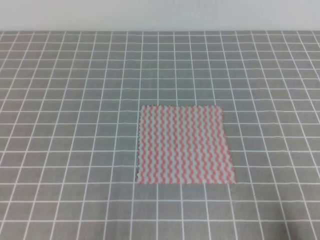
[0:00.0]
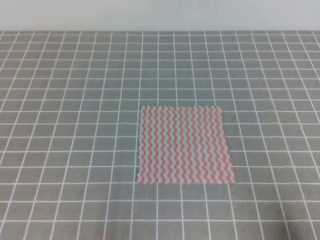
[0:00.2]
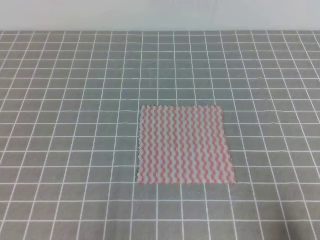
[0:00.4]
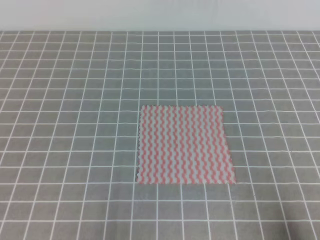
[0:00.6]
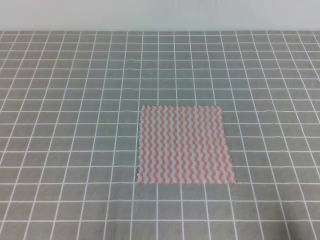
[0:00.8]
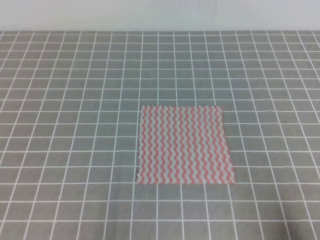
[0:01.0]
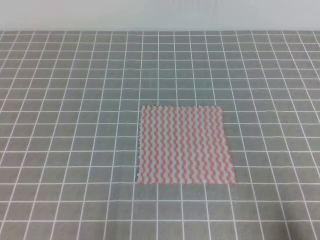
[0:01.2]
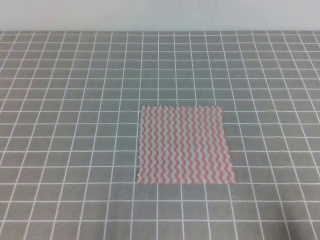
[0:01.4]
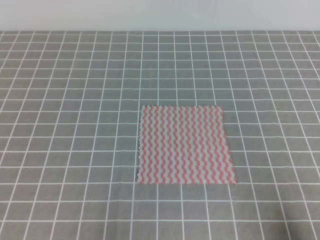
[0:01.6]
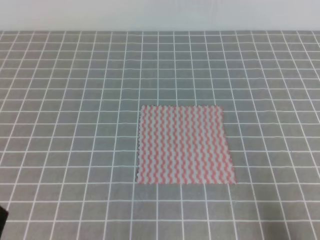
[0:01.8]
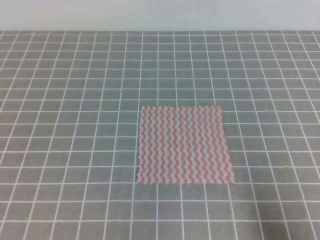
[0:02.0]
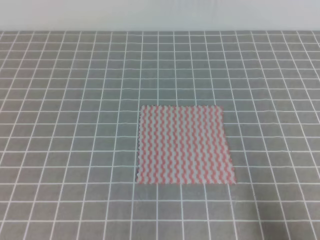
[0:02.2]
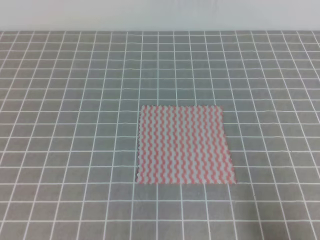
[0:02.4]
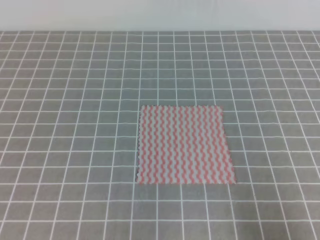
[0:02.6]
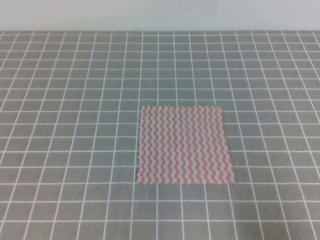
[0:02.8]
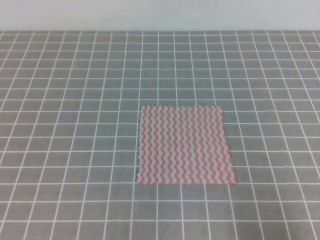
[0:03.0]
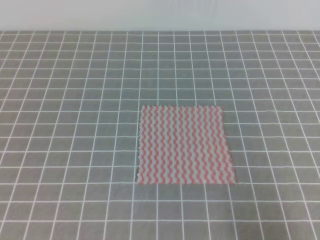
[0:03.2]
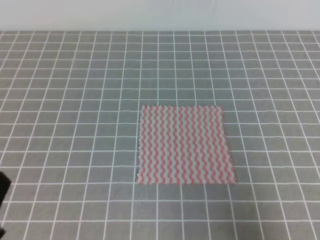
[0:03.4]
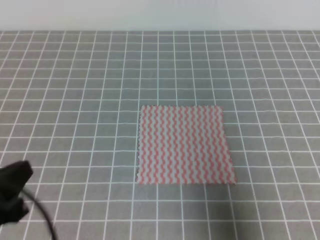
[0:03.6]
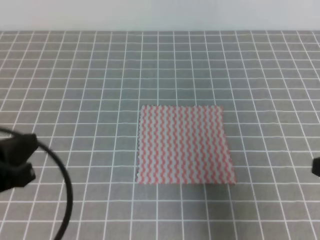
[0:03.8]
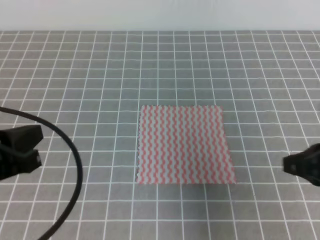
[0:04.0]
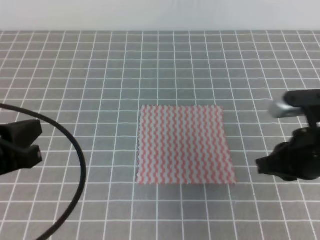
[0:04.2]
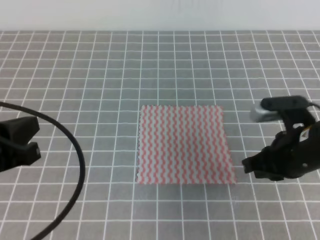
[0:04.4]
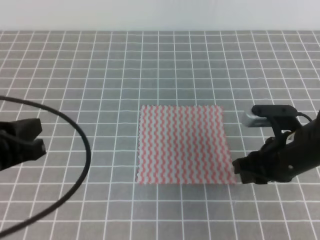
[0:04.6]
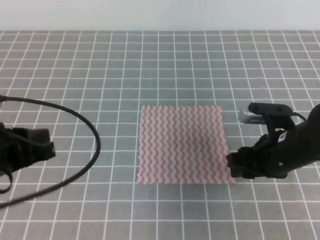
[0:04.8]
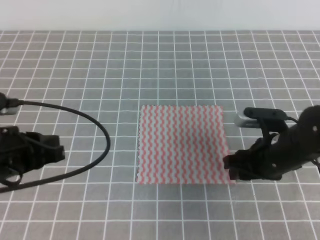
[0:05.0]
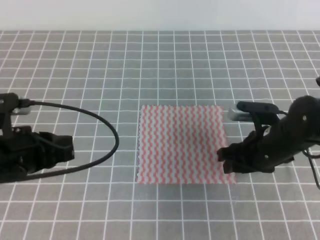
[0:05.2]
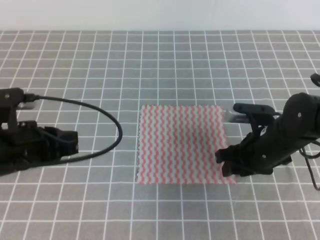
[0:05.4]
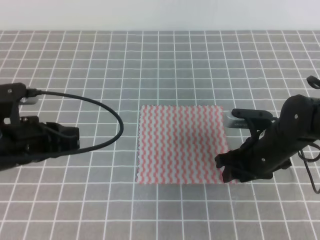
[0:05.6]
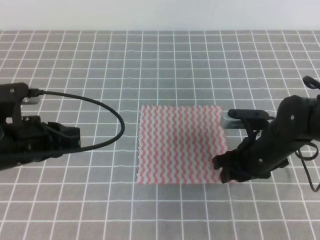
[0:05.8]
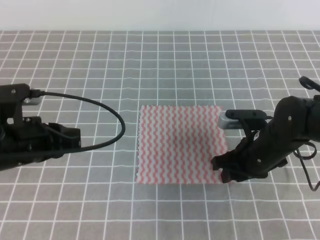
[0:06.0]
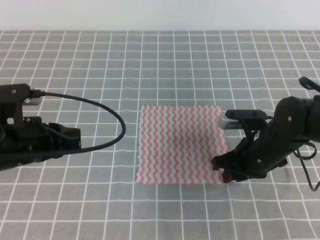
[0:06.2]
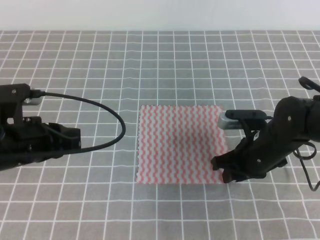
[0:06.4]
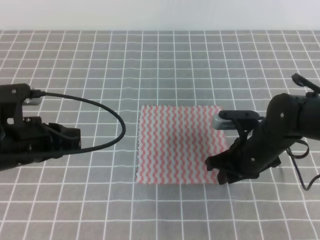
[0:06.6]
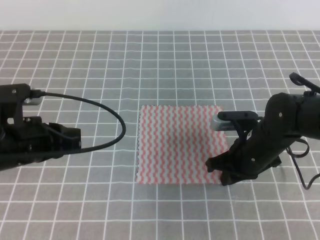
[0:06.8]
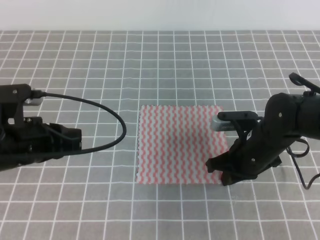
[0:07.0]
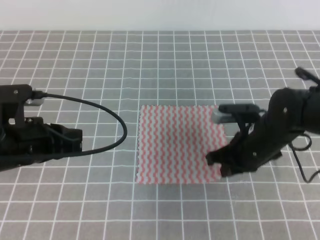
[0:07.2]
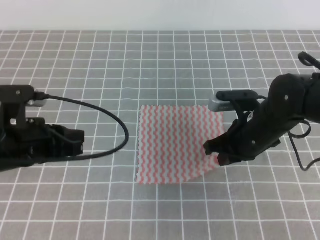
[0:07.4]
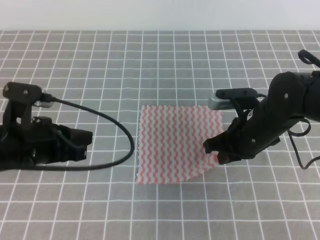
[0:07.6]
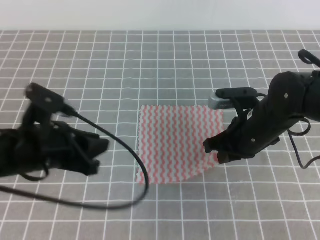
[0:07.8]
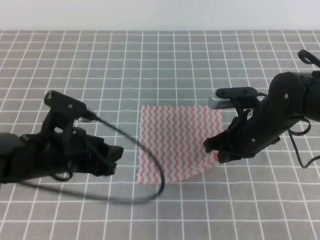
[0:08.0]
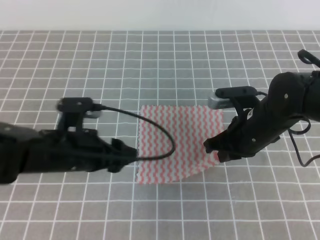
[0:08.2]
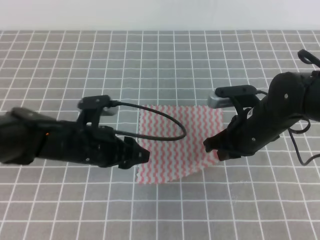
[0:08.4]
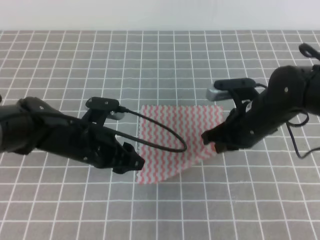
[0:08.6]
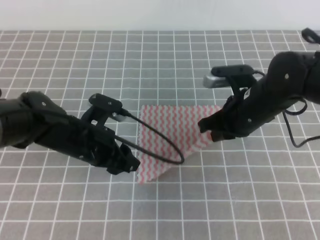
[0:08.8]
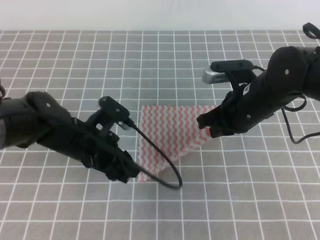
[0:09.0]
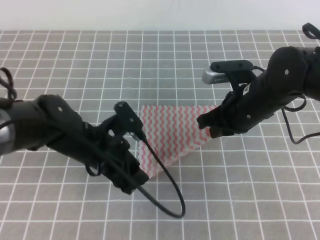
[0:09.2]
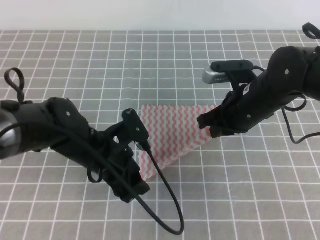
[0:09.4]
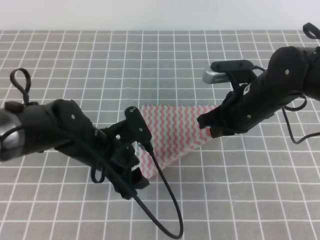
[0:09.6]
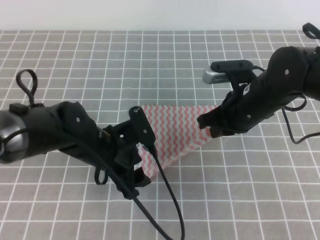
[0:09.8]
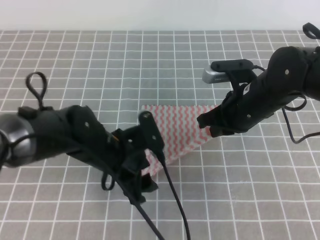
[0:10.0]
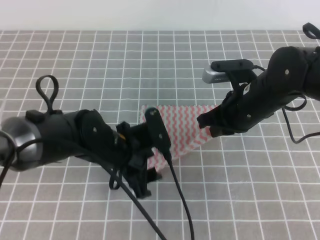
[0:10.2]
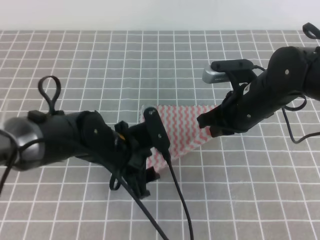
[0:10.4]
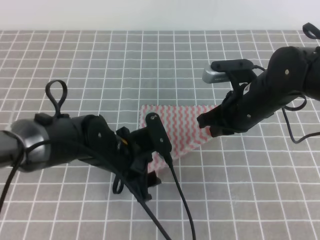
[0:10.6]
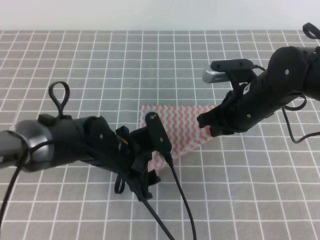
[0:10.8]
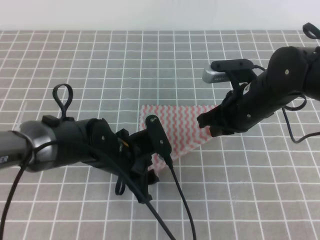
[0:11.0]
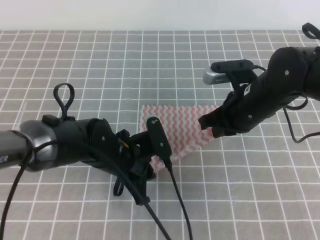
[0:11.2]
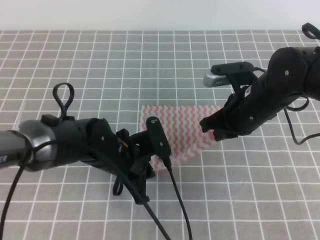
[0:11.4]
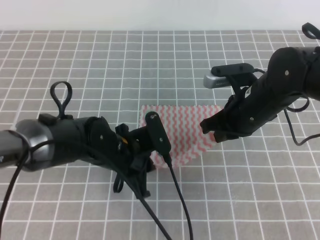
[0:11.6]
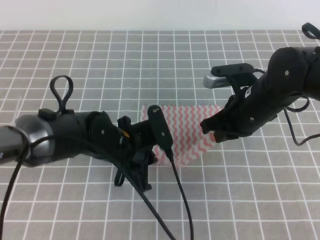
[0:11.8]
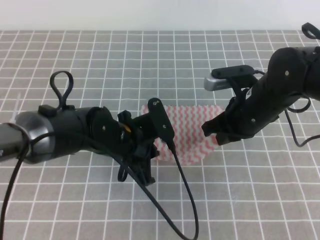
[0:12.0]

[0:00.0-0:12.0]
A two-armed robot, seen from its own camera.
0:03.0 to 0:04.4: The left gripper shifts about 15 cm forward and upward. The right gripper goes about 20 cm forward and to the left.
0:04.4 to 0:06.0: The left gripper travels forward and downward by roughly 10 cm, while the right gripper heads downward and forward, covering about 10 cm, and opens its fingers.
0:06.0 to 0:07.6: The right gripper closes.
0:07.6 to 0:09.0: The left gripper heads to the right, downward and forward, covering some 10 cm, and opens.
0:09.0 to 0:10.4: The left gripper travels to the right by approximately 5 cm.
0:10.4 to 0:12.0: The left gripper closes up.

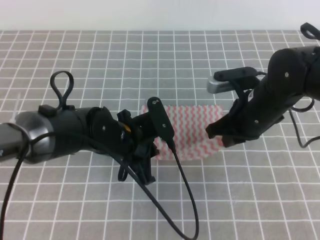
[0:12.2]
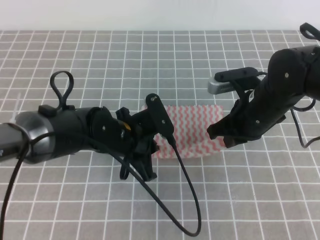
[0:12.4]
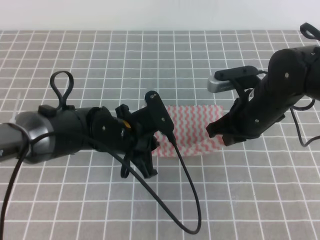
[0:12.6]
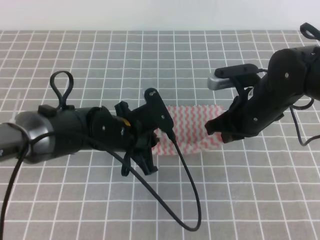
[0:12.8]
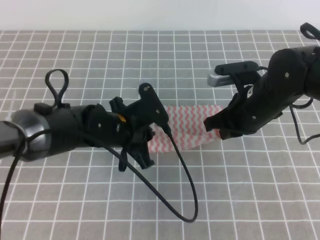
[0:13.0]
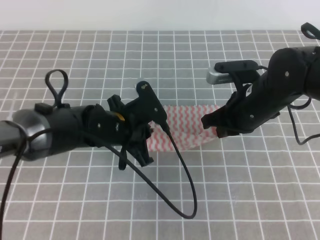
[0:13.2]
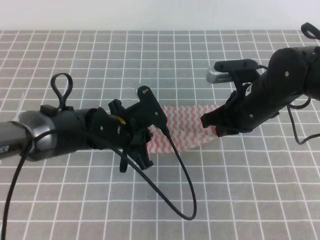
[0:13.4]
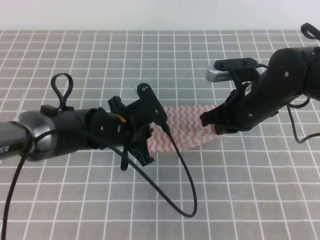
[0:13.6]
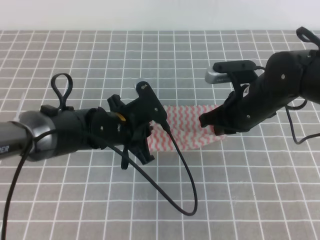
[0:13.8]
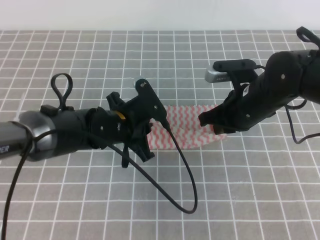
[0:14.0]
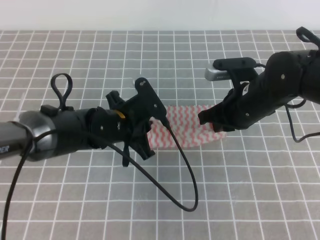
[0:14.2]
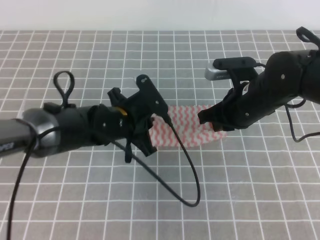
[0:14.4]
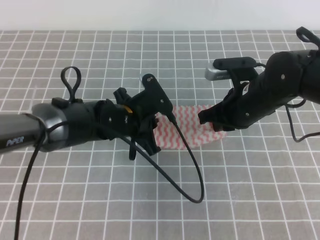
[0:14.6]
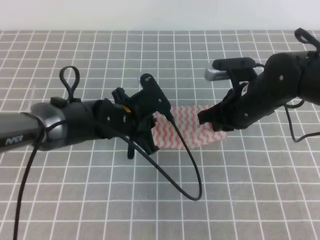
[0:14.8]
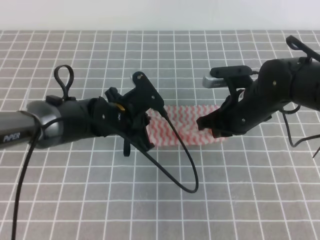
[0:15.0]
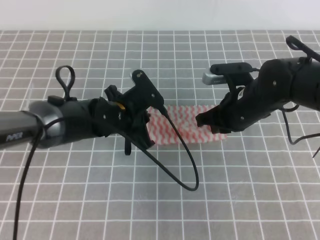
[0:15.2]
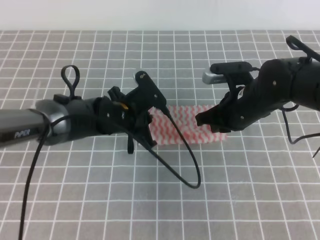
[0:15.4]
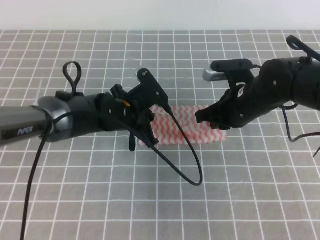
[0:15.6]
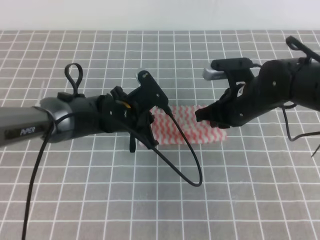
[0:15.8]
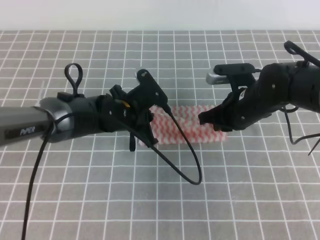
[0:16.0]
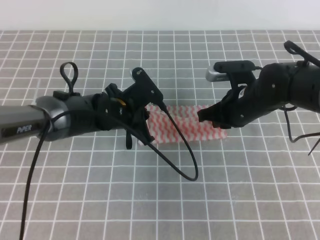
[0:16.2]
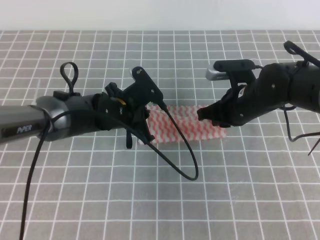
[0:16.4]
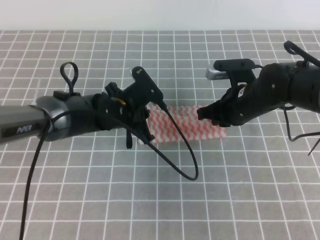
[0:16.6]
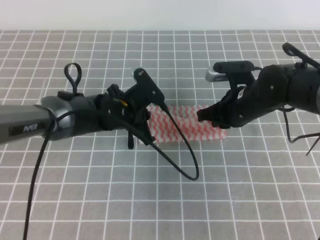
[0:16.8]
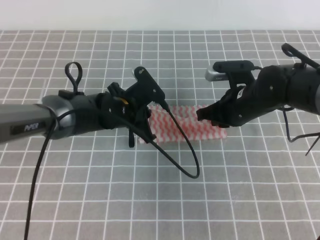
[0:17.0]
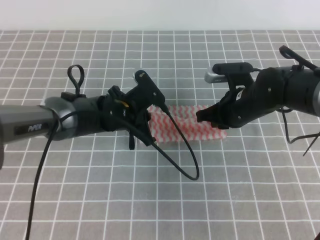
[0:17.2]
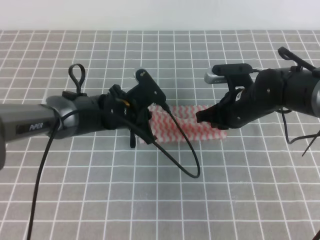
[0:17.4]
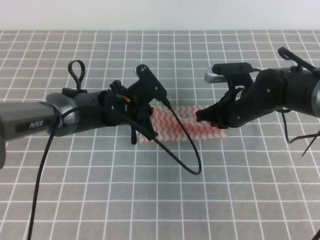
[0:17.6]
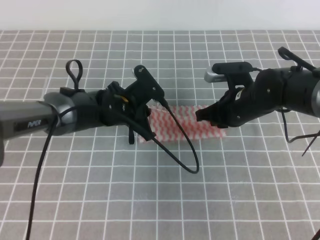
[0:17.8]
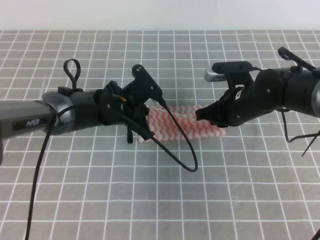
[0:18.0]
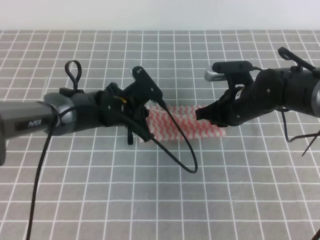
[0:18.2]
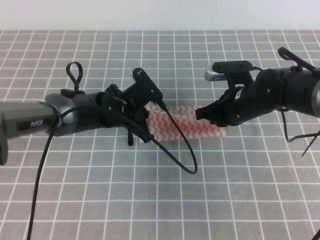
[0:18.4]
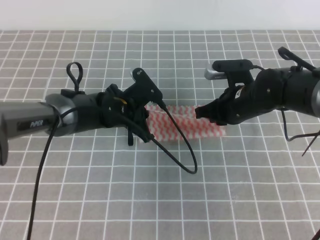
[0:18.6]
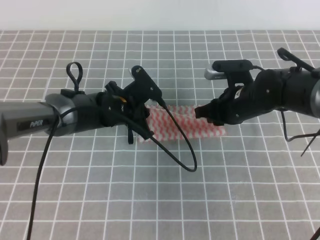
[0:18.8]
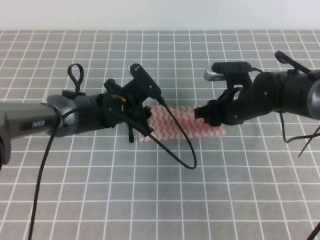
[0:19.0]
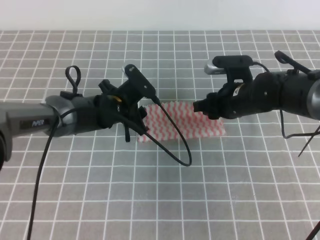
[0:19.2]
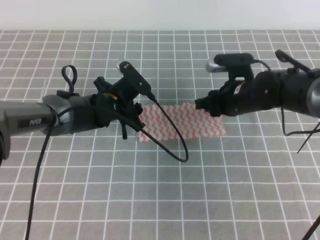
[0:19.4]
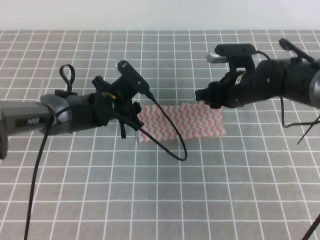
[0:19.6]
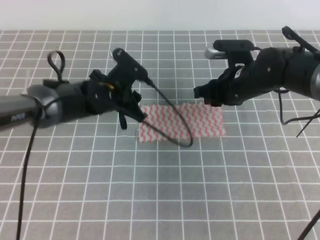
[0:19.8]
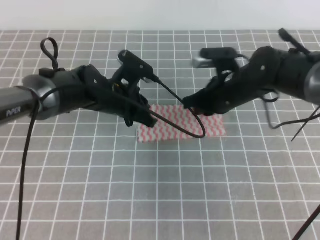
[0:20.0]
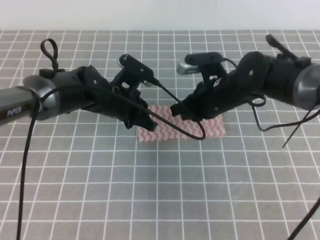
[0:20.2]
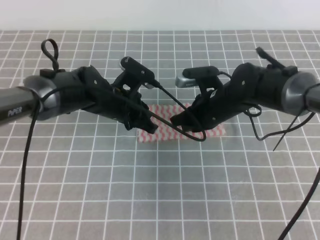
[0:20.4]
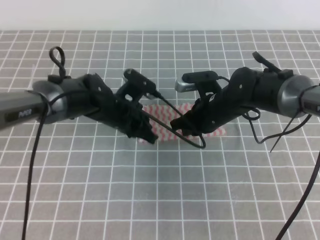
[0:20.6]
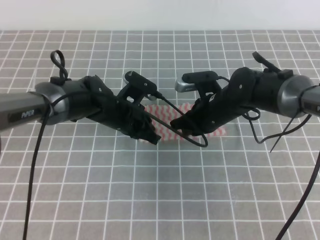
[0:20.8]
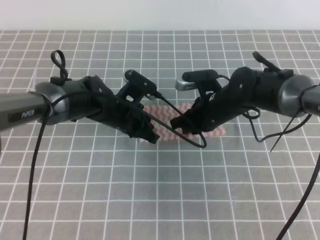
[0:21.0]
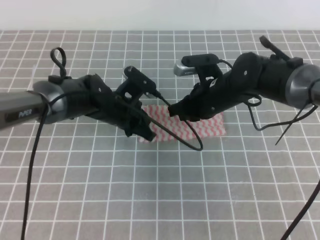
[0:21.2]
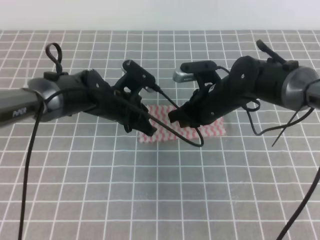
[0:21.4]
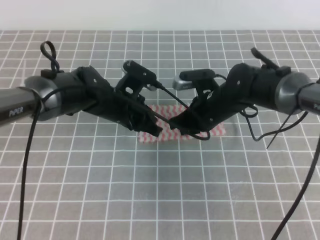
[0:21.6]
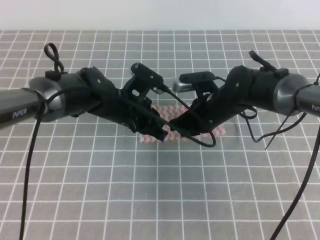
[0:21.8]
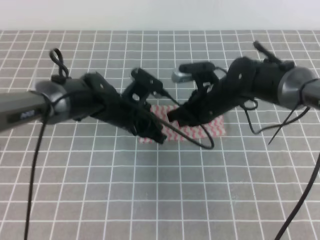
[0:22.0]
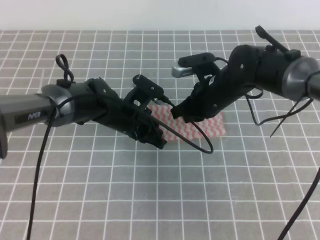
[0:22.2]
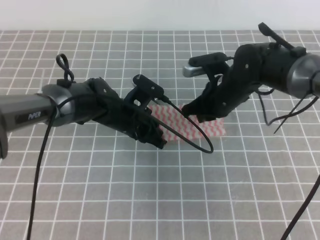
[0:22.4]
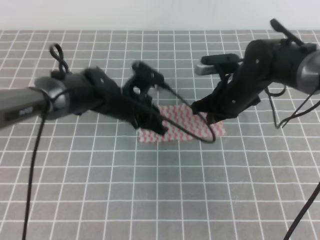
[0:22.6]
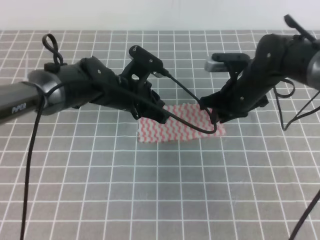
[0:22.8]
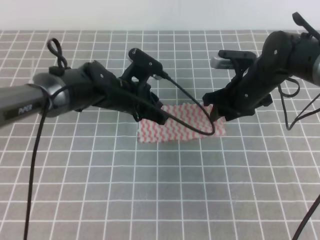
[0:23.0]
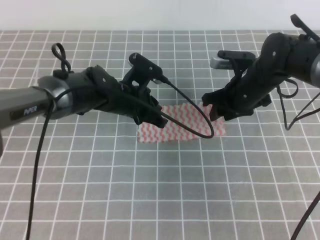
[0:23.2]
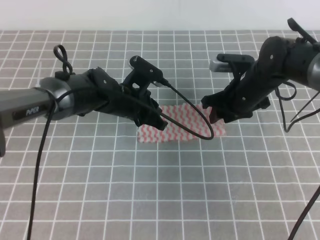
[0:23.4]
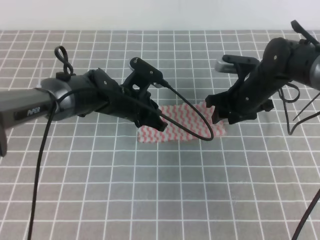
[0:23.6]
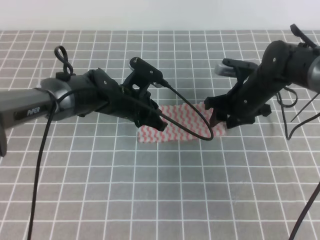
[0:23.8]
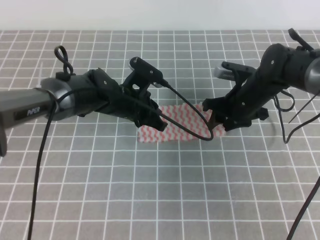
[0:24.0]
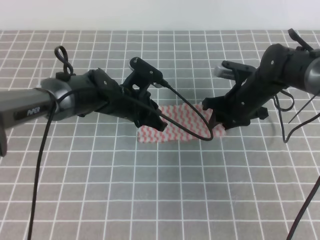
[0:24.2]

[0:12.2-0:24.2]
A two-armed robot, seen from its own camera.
0:12.2 to 0:15.2: The grippers move only a little.
0:15.2 to 0:18.2: The grippers stay close to where they were, moving slightly.
0:18.2 to 0:19.8: The right gripper opens; the left gripper opens up.
0:19.8 to 0:21.2: The left gripper closes its fingers. Meanwhile the right gripper closes its fingers.
0:21.2 to 0:22.6: The grippers move only a little.
0:22.6 to 0:24.2: The right gripper changes place by some 5 cm, and opens its fingers.
